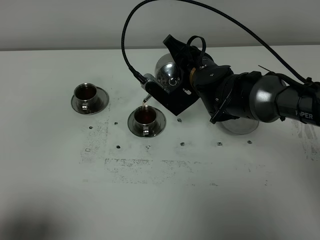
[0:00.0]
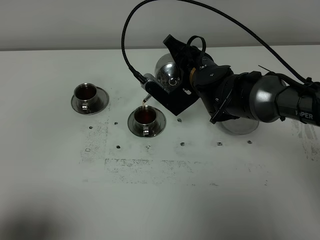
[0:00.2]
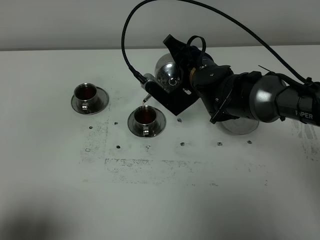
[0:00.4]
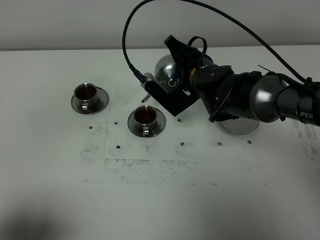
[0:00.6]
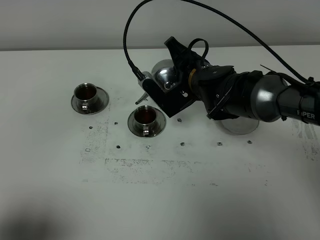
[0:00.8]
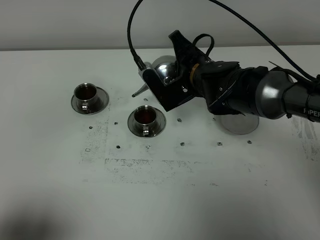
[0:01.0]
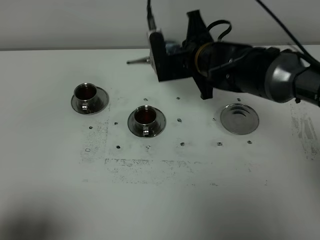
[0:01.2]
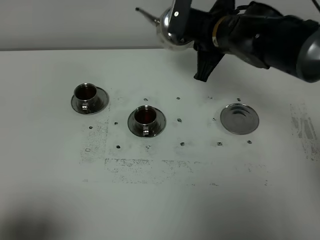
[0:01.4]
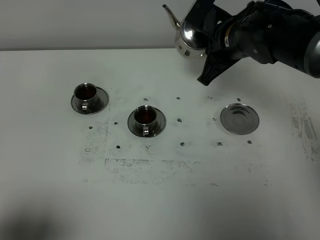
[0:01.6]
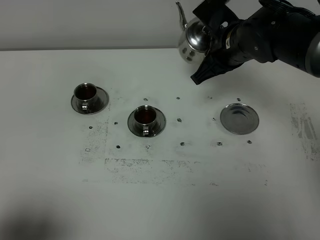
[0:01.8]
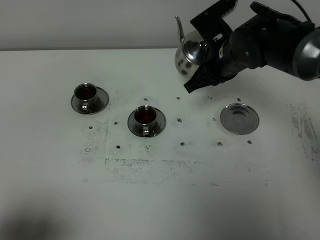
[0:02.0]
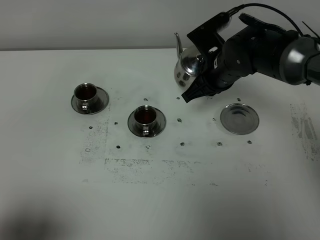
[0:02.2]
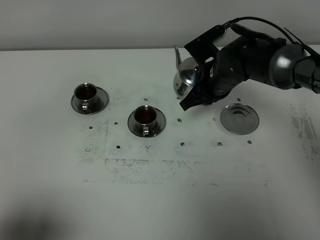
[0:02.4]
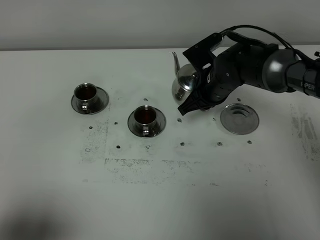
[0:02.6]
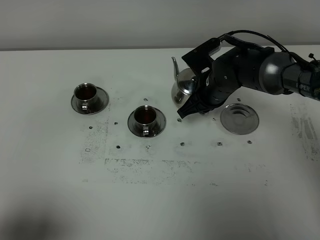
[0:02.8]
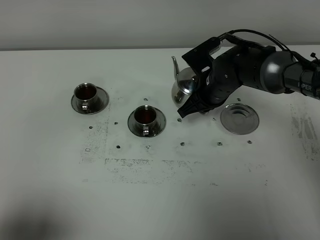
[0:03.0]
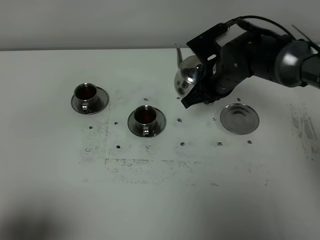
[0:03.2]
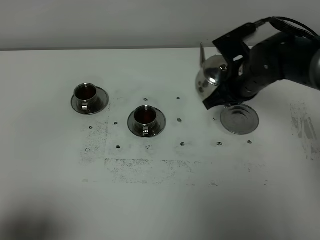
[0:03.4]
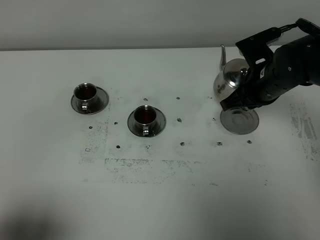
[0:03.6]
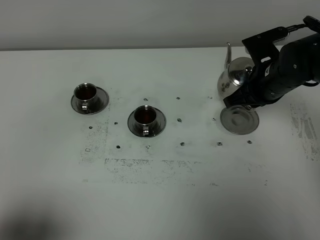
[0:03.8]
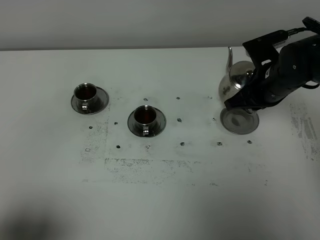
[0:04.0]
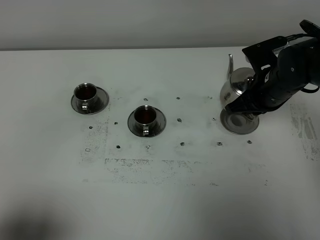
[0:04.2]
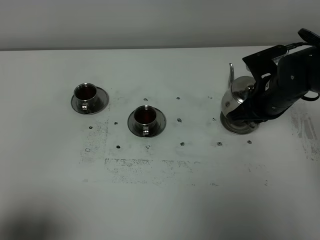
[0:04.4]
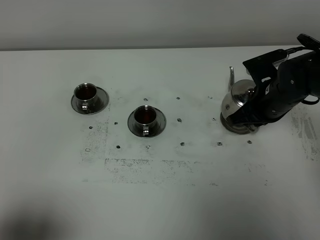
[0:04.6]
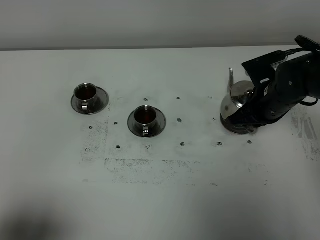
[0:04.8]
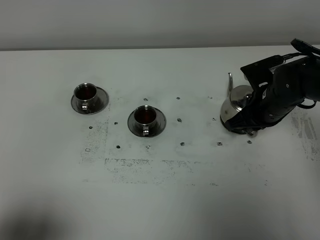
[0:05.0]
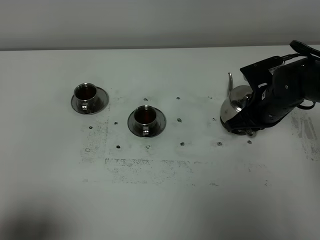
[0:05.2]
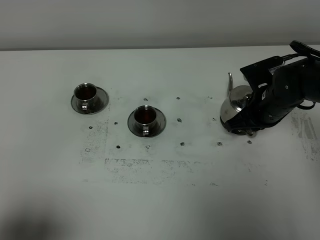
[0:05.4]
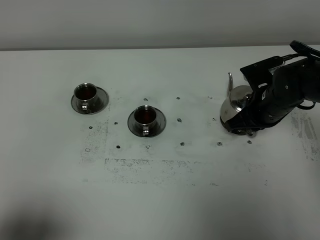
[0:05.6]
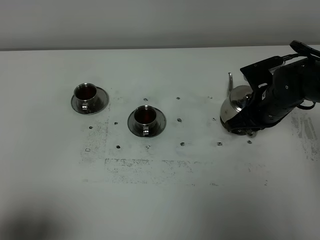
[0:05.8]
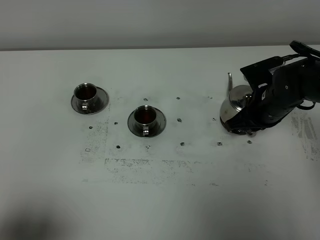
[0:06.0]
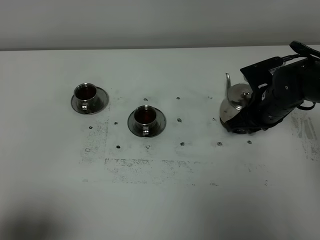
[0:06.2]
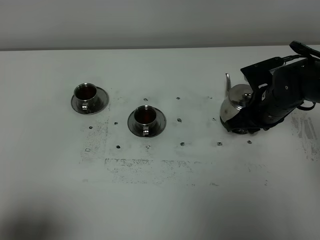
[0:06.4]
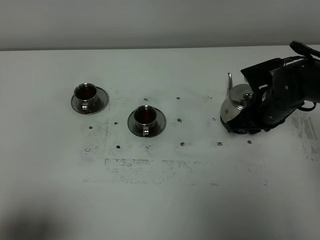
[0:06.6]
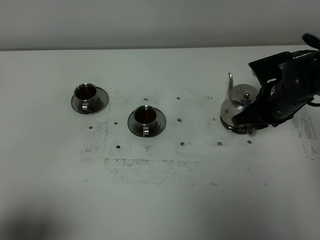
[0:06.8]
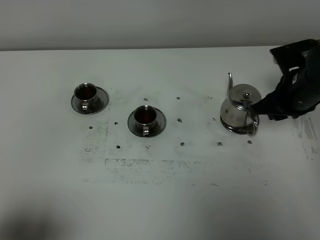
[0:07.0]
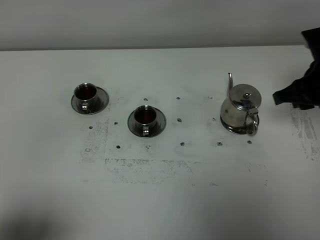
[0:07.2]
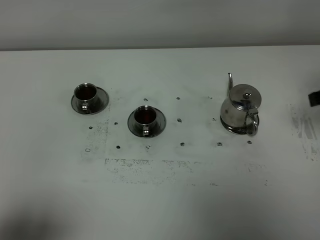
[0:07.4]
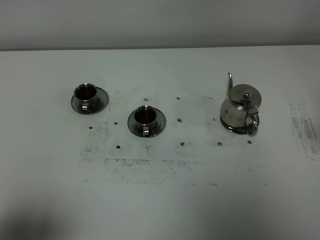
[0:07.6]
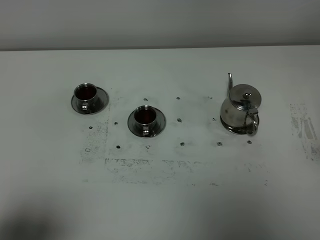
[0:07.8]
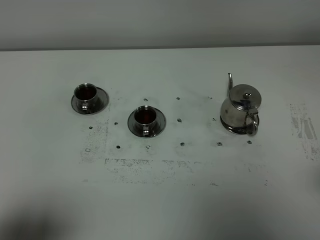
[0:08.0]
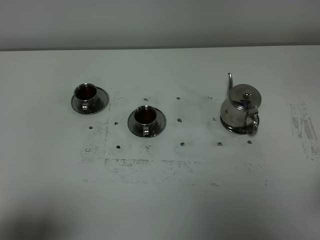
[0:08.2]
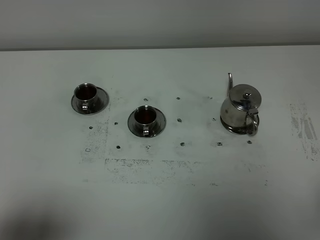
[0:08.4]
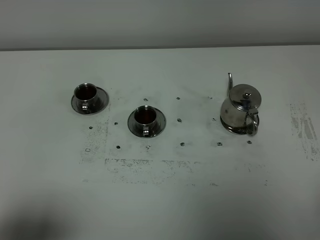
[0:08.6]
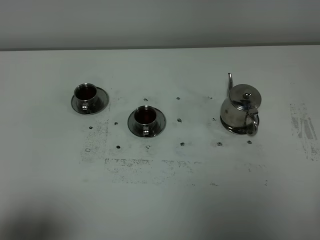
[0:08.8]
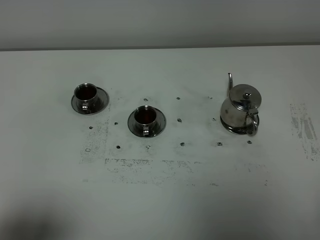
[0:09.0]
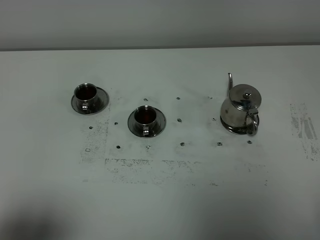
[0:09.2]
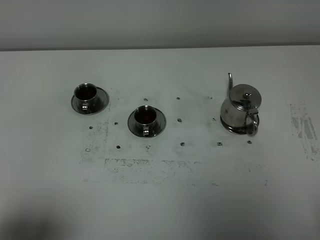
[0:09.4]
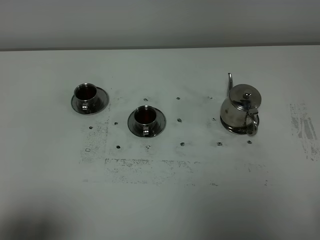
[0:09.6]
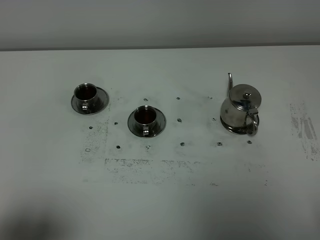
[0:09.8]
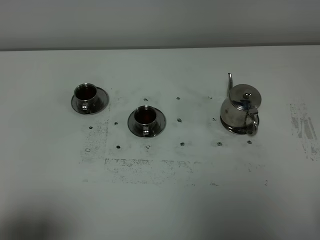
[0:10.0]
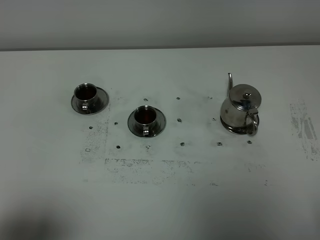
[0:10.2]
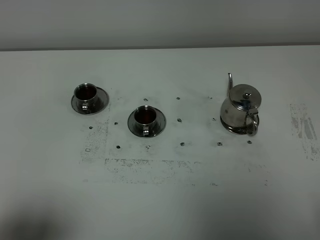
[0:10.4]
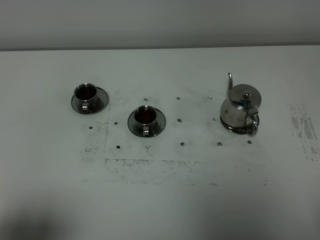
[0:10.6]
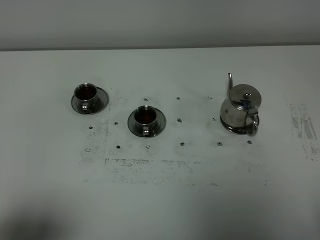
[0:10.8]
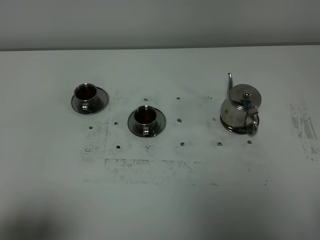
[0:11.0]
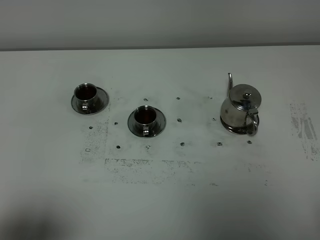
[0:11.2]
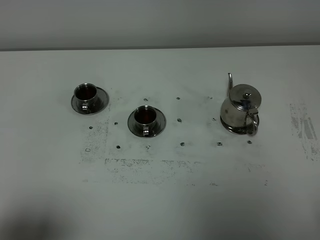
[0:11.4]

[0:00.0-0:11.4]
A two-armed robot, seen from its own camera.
Task of the whole recording: grasp the stainless steel teapot and pour the tea into the two stainless steel teacups one by one, put the stainless steel teapot back in its original place.
0:00.0 to 0:01.4: The right gripper heads upward, covering approximately 10 cm.
0:01.4 to 0:02.8: The right gripper shifts about 10 cm downward.
0:02.8 to 0:04.2: The right gripper travels to the right and backward by about 10 cm.
0:04.2 to 0:05.6: There are only small adjustments of the grippers.
0:05.6 to 0:07.2: The right gripper is displaced upward and to the right by some 10 cm, and opens its fingers.
0:07.2 to 0:08.6: The right gripper moves backward, roughly 30 cm.
0:10.0 to 0:11.4: Both grippers stay about where they are.

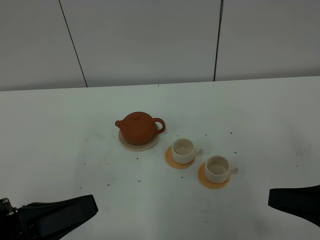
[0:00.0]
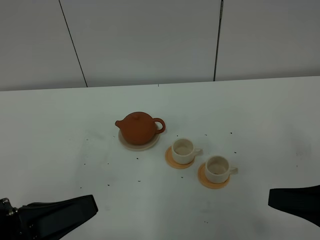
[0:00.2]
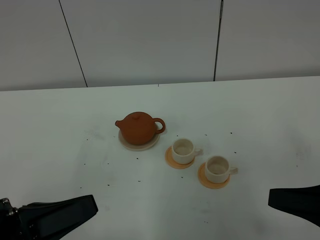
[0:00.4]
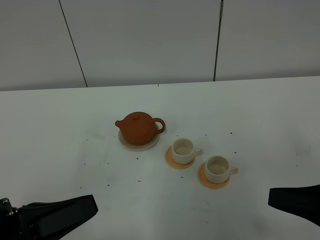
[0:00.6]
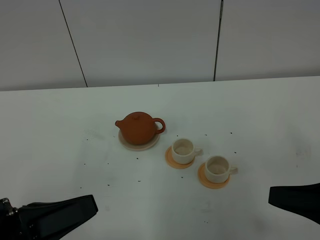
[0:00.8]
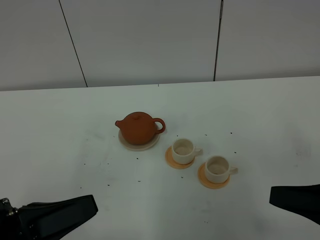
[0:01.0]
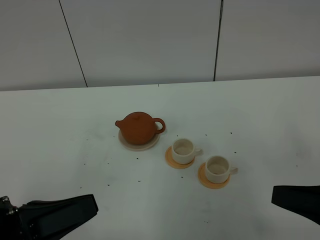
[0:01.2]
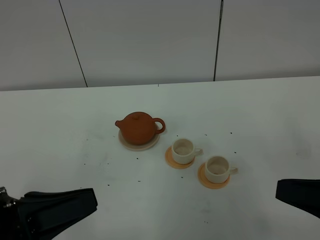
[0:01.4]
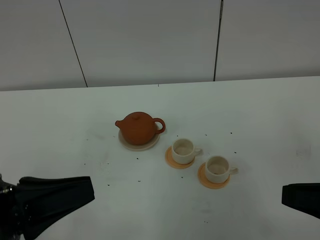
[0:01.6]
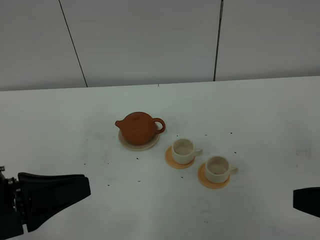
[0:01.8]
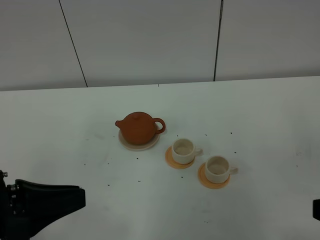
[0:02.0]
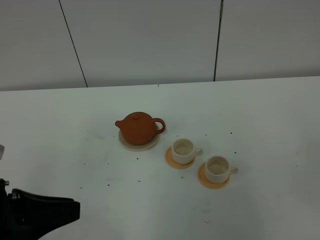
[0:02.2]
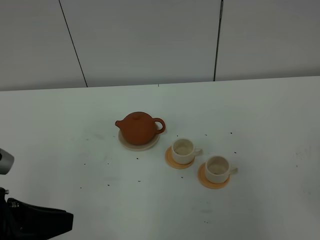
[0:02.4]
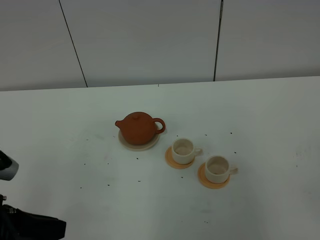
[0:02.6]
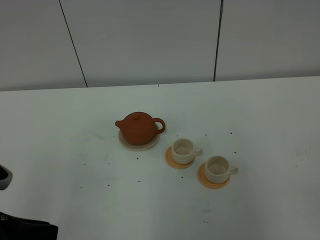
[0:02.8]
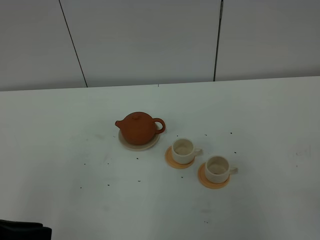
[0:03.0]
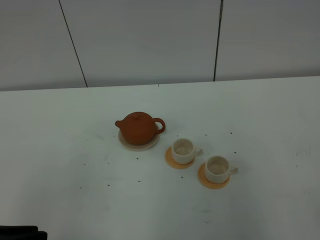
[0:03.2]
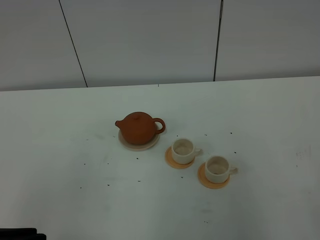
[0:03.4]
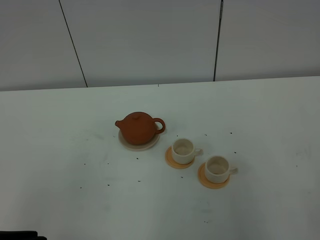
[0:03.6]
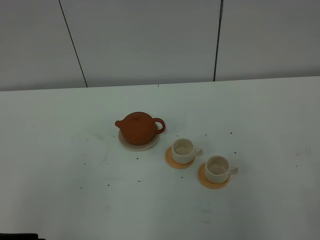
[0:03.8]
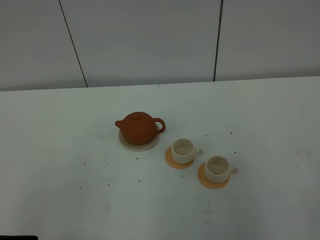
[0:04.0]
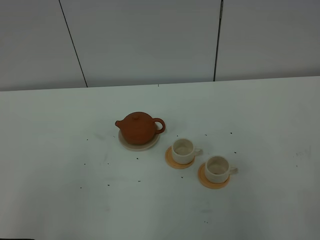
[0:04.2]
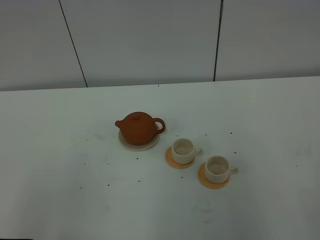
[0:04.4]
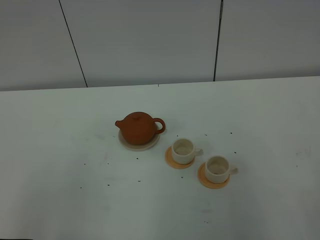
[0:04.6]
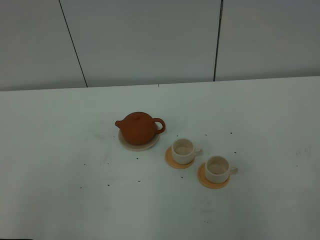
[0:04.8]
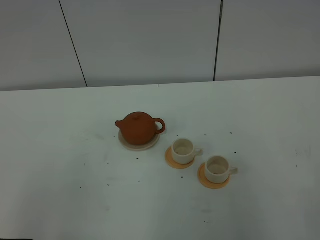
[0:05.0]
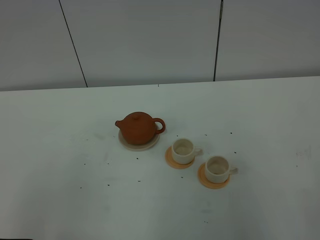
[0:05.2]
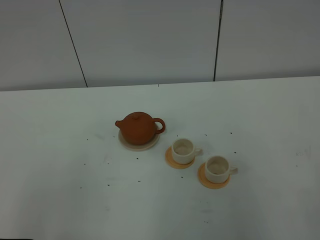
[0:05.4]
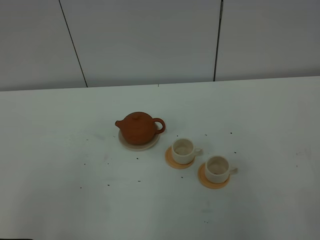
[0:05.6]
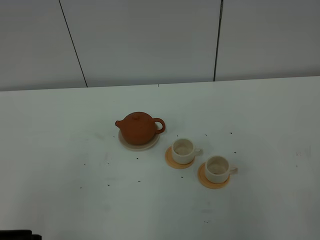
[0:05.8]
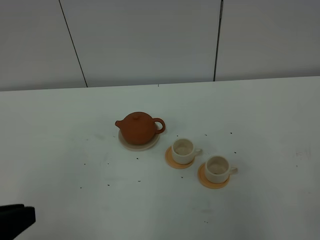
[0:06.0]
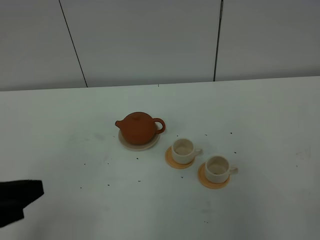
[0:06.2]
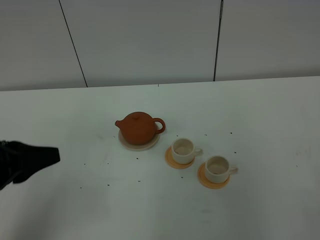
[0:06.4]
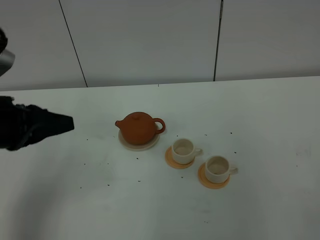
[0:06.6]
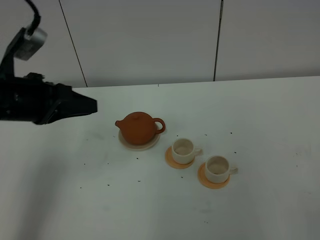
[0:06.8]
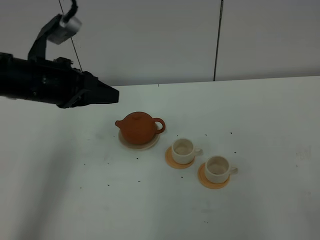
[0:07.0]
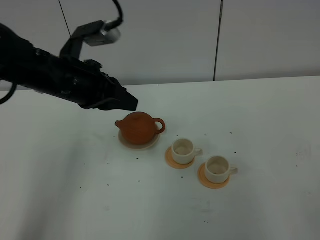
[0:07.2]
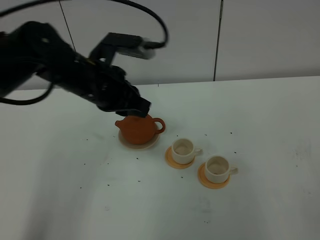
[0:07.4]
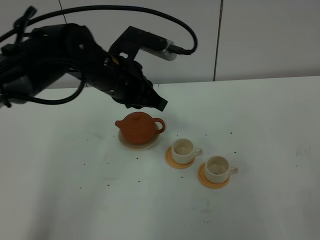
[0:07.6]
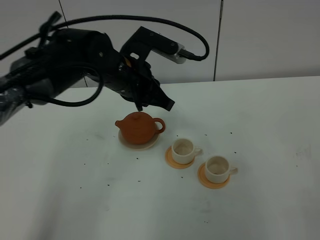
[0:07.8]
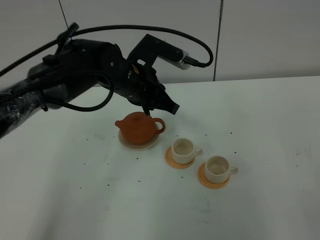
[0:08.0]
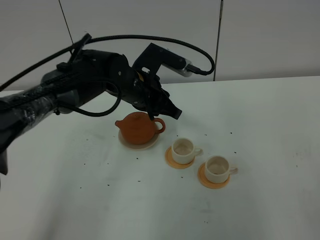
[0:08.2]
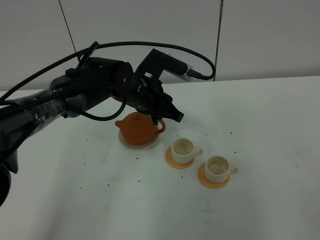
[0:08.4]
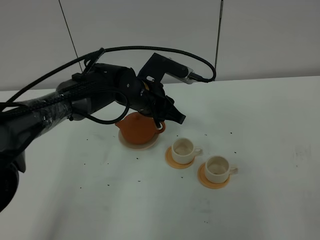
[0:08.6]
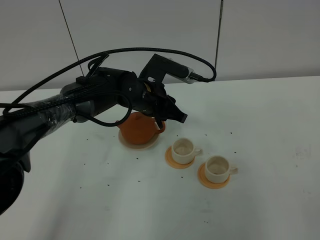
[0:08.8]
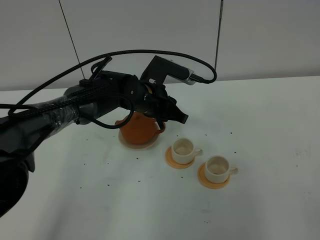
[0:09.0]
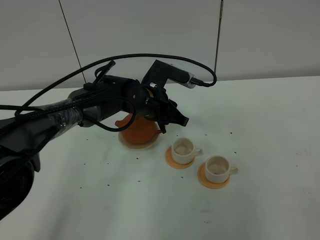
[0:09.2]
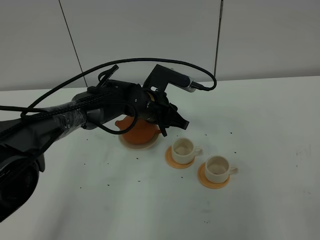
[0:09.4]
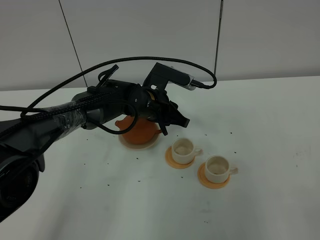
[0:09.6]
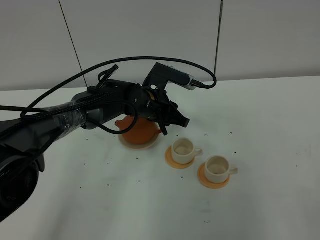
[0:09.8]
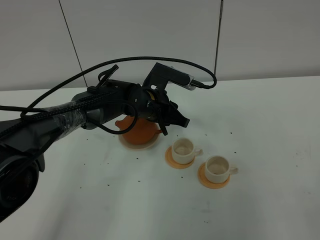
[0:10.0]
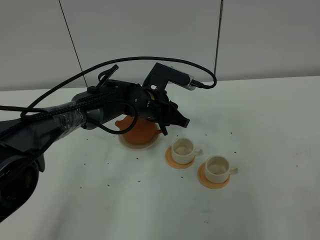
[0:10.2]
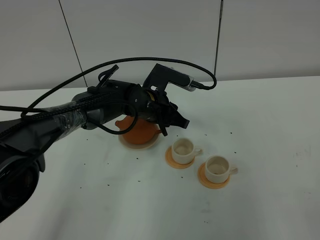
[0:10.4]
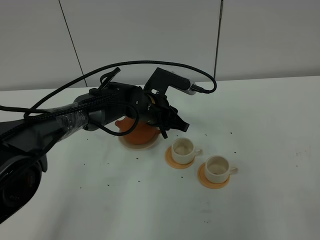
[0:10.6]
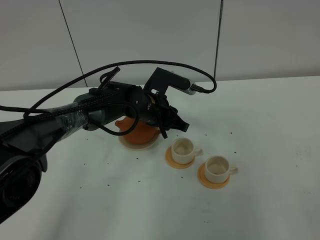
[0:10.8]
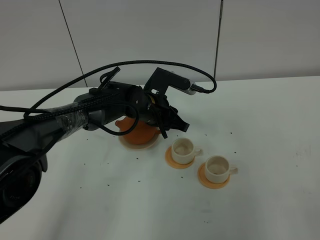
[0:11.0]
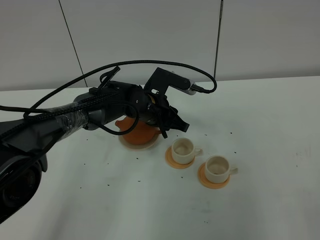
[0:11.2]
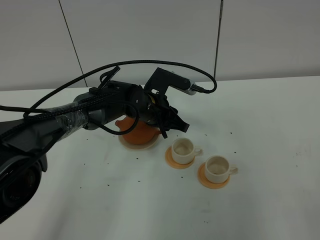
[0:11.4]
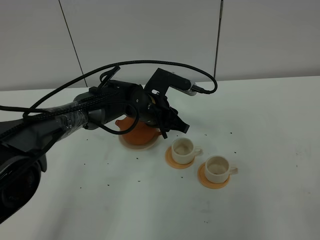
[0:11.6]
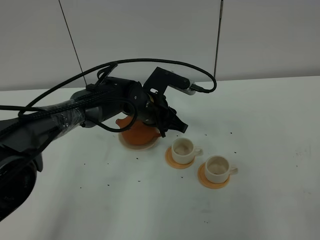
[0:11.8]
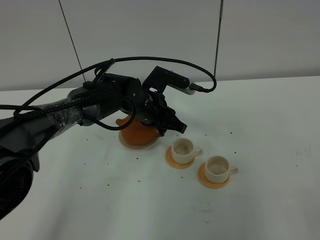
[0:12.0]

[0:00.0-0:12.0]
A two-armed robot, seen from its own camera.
Task of the whole recording: grasp the brown teapot and pour the tea into the two white teacups one by one, put the brown teapot back in its original place.
0:00.0 to 0:01.6: The right gripper moves roughly 5 cm.
0:01.6 to 0:03.0: The right gripper heads backward, covering approximately 15 cm.
0:03.0 to 0:06.0: The grippers stay close to where they were, moving slightly.
0:06.0 to 0:07.6: The left gripper moves forward and to the right, approximately 35 cm.
0:07.6 to 0:09.0: The left gripper is displaced downward and forward by about 10 cm, and opens up.
0:09.0 to 0:12.0: There are only small adjustments of the grippers.
